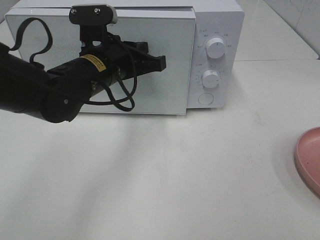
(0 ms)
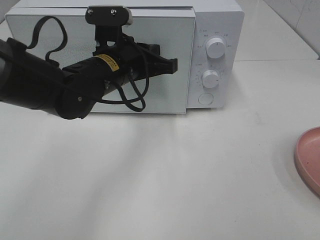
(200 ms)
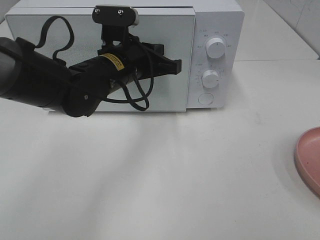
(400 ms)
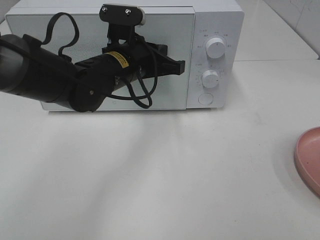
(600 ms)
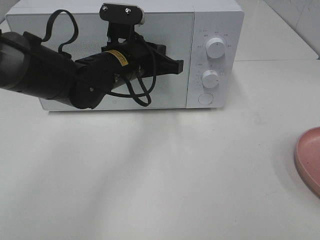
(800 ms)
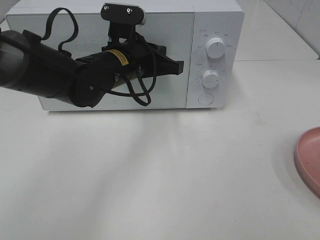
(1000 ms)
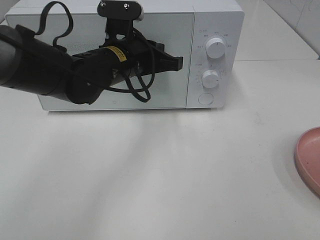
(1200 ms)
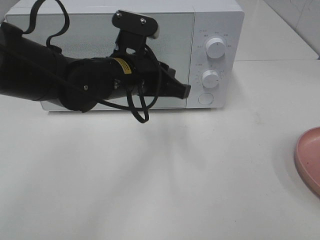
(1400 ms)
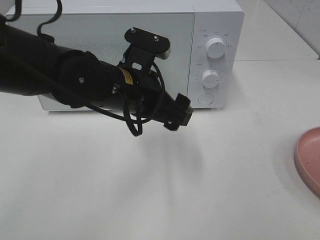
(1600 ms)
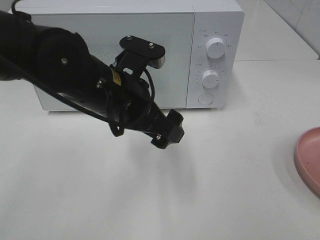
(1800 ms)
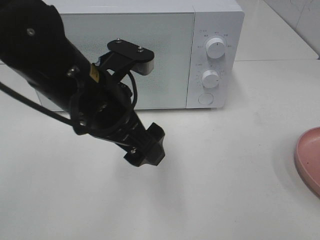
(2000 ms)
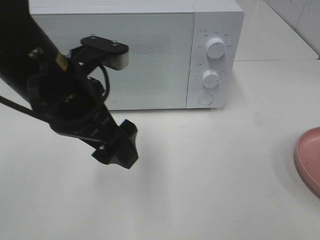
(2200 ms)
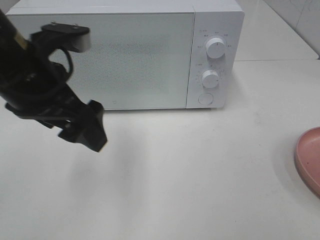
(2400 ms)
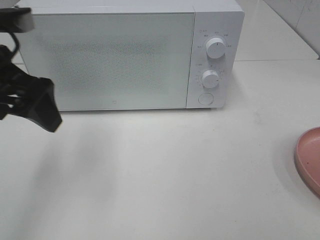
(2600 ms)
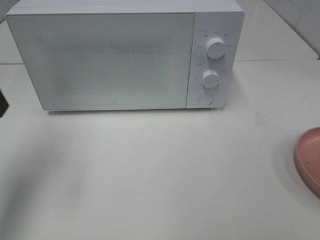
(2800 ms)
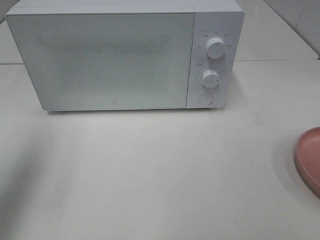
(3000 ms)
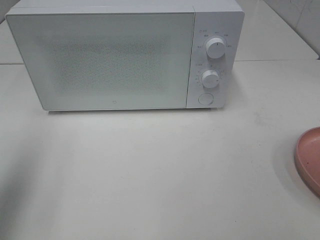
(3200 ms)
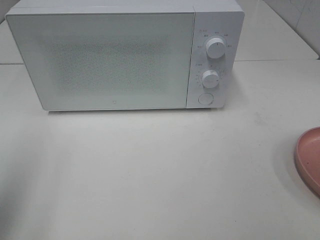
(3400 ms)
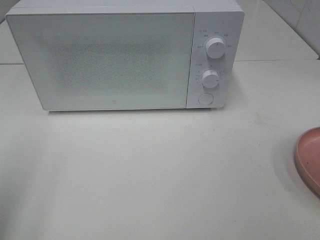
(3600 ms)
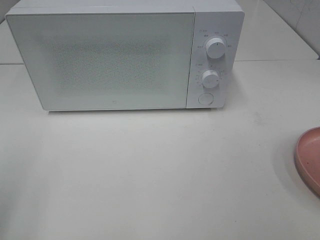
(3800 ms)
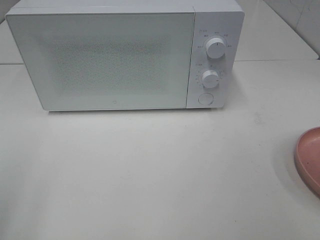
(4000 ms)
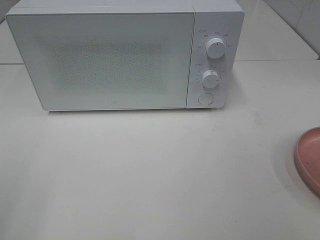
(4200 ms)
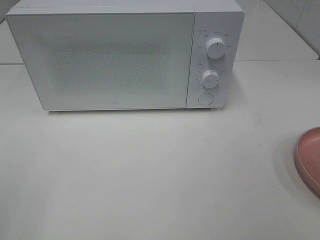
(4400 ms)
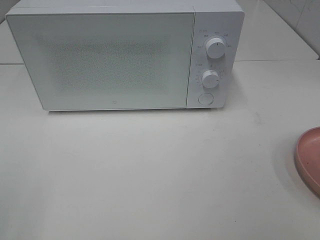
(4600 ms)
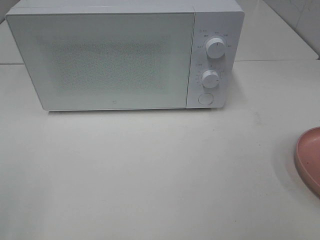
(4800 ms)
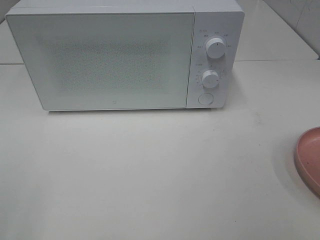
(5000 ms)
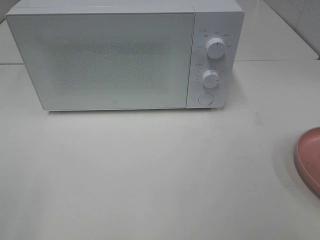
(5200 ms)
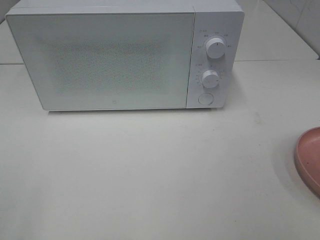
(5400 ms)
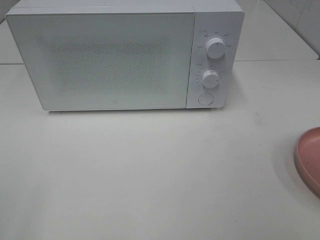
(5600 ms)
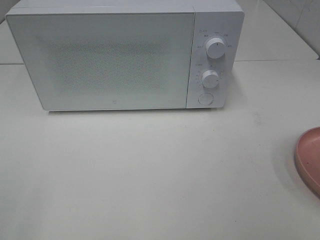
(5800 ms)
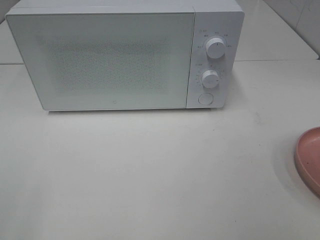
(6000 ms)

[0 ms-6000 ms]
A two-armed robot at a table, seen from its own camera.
Task of the whole recording: Heat the burger.
0 ms to 1600 ms: The left gripper travels backward by some 5 cm, and opens up.
1600 ms to 3000 ms: The left gripper shifts some 30 cm to the left and upward.
3000 ms to 4400 ms: The left gripper goes approximately 20 cm backward.

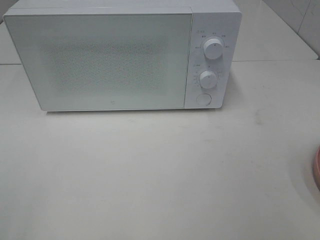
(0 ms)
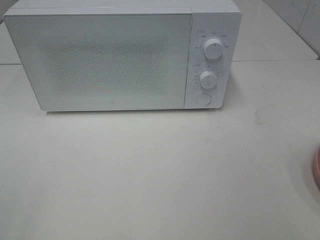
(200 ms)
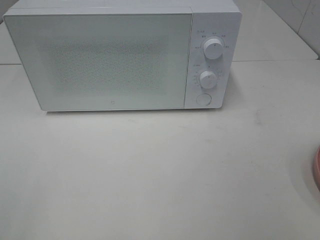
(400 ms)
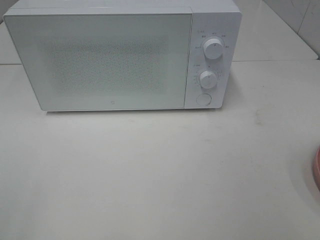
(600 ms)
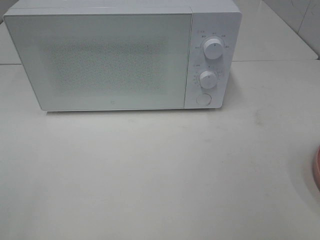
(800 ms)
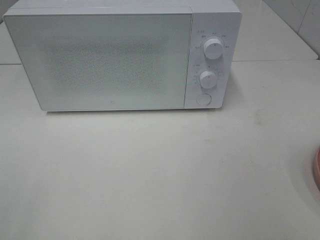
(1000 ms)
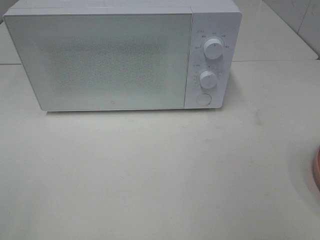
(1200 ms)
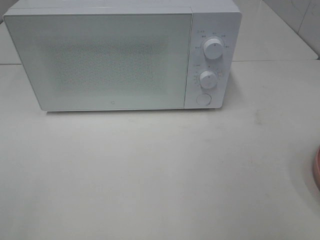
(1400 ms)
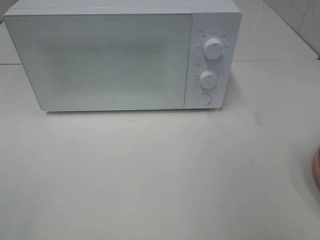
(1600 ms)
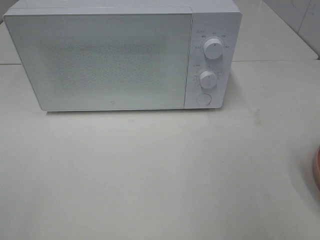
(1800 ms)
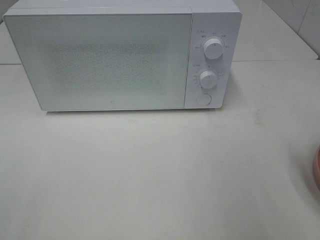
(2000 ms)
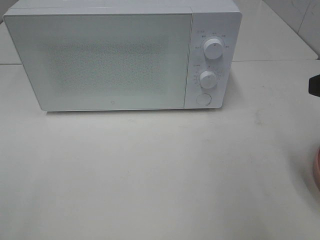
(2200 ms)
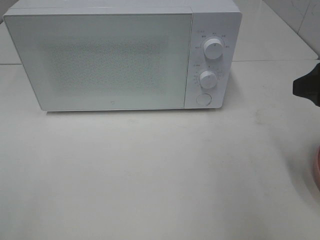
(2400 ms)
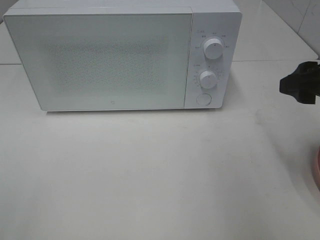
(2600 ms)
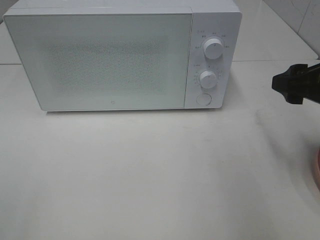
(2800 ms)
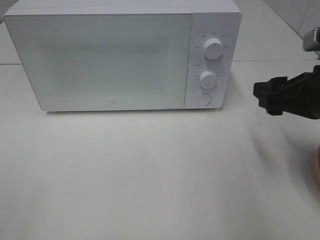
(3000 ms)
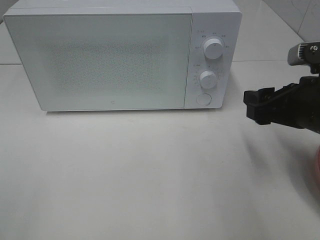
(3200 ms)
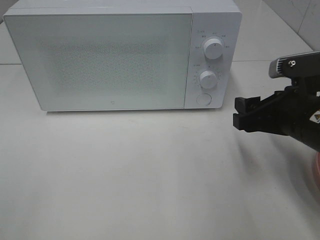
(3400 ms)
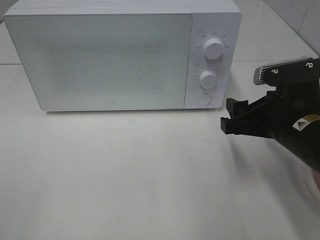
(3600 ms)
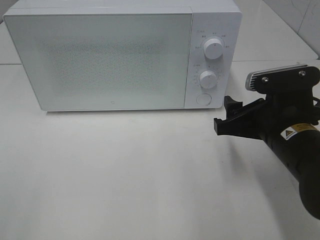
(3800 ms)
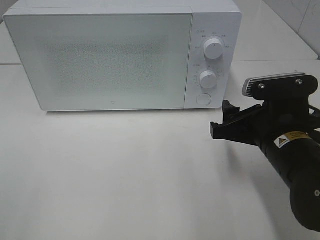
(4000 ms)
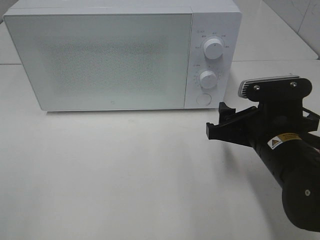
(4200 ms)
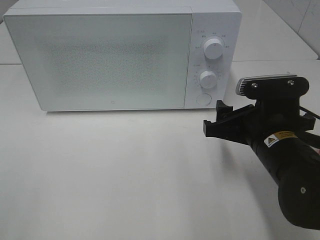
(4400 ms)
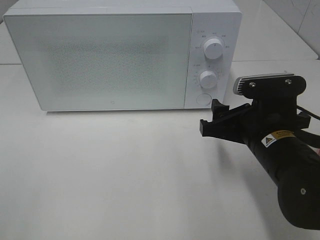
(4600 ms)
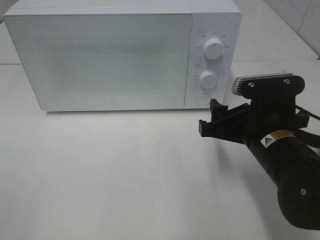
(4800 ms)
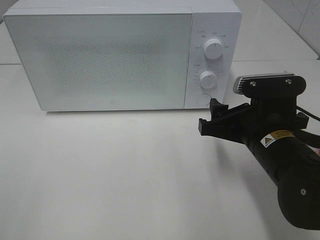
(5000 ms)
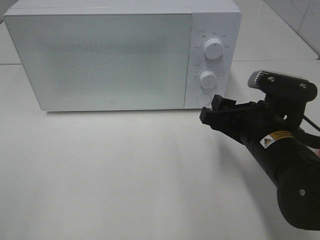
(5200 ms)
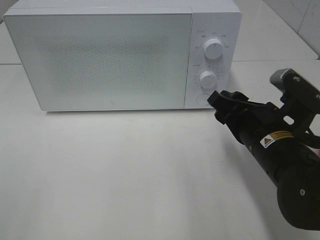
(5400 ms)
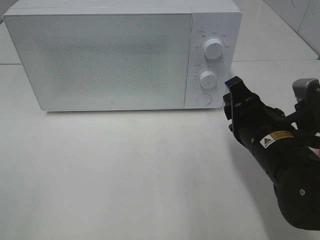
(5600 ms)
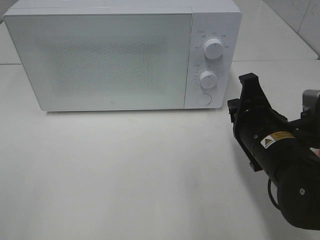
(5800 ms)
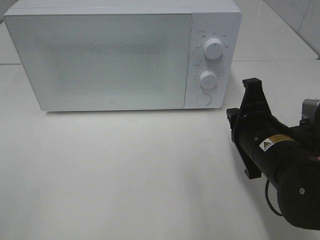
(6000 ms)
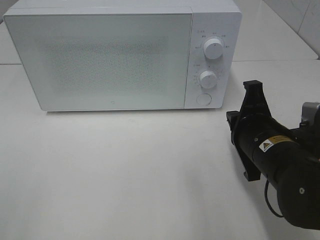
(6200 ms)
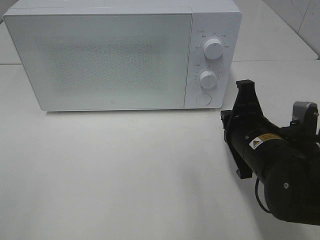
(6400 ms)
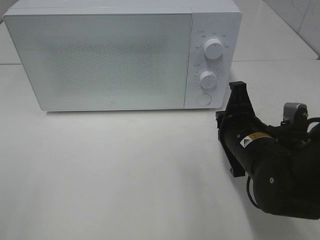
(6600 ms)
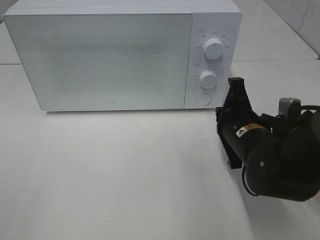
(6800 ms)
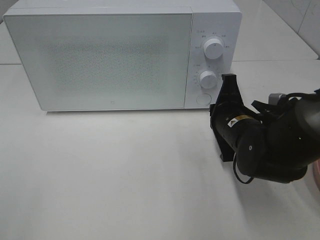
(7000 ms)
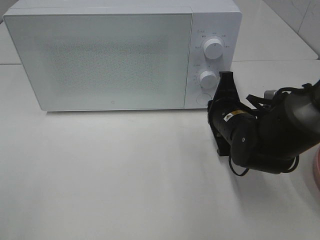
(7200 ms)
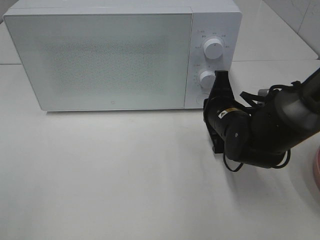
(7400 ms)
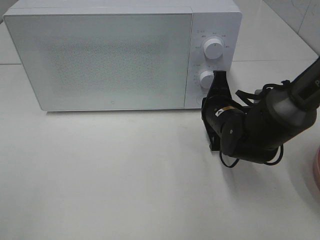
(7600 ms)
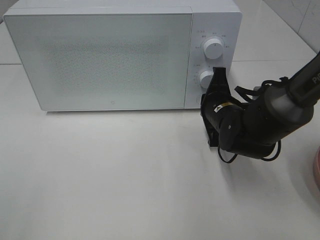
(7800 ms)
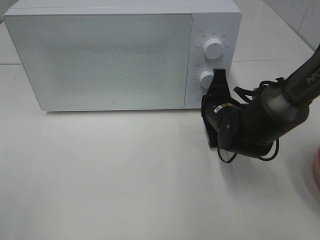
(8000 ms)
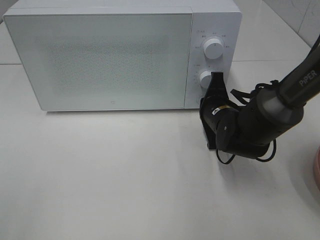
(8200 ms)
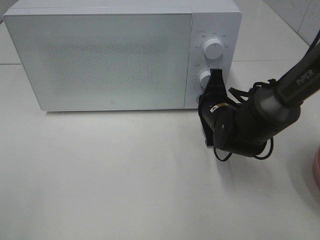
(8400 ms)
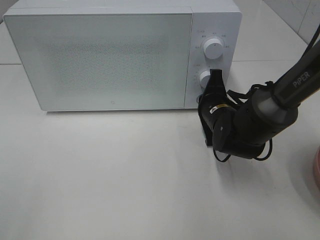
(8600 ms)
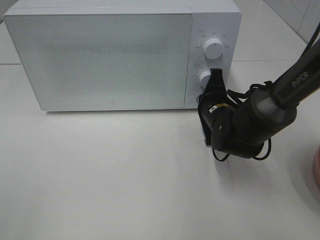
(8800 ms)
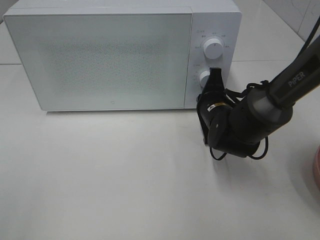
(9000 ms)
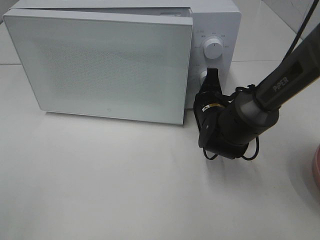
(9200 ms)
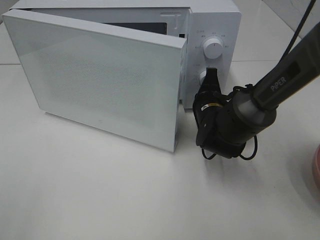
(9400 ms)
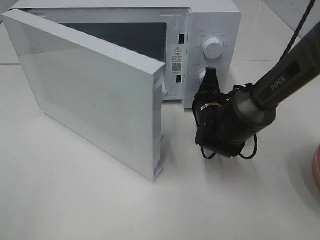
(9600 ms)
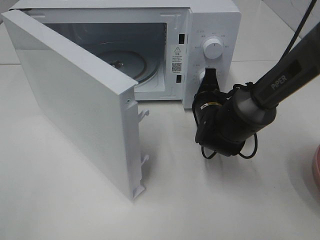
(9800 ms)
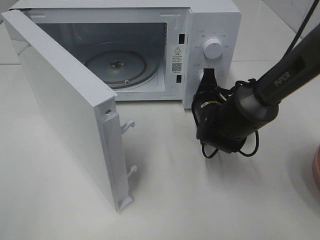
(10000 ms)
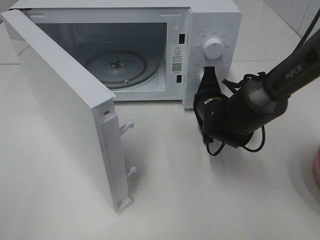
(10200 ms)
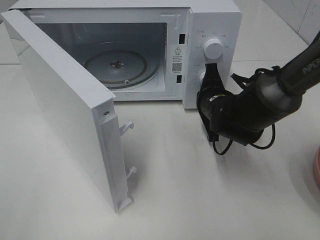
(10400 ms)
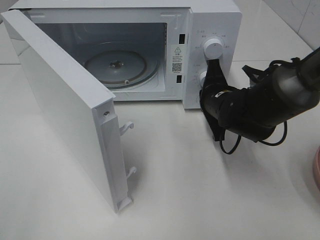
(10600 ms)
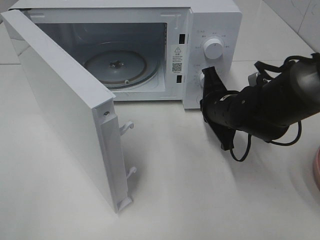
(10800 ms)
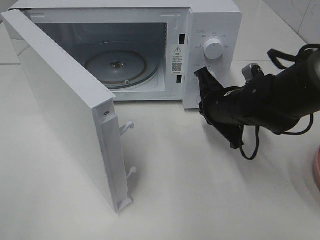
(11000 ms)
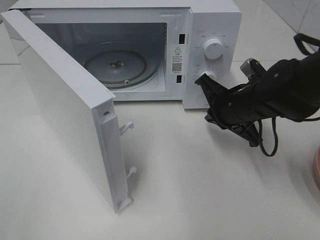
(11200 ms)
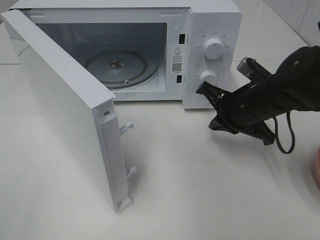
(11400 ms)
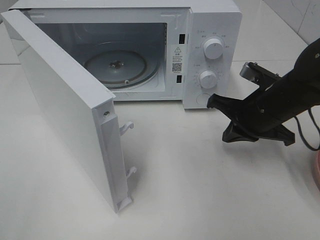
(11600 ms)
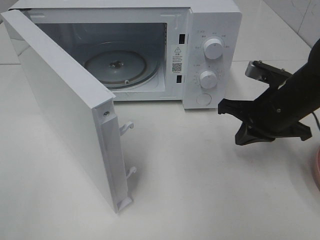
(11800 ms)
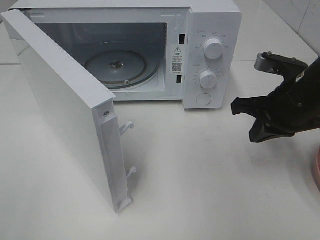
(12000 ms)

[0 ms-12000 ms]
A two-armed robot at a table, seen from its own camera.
Task of the whole recording: Heat the burger.
Step, 0 ms to 10400 ms: Right hand: press the switch.
1600 ms to 3000 ms: The right gripper heads forward and downward, covering about 15 cm.
3000 ms to 4400 ms: The right gripper travels to the left and downward by approximately 10 cm.
4400 ms to 6000 ms: The right gripper closes up.
6000 ms to 7600 ms: The right gripper travels forward by roughly 10 cm.
7600 ms to 9000 ms: The grippers stay close to where they were, moving slightly.
10400 ms to 12000 ms: The right gripper goes roughly 15 cm upward, to the right and backward.

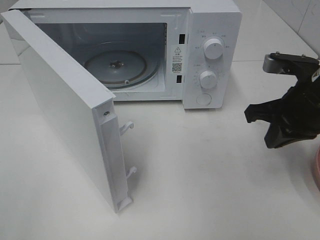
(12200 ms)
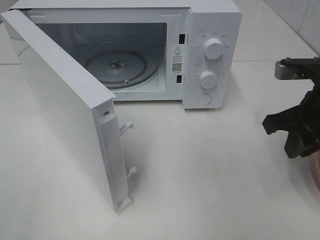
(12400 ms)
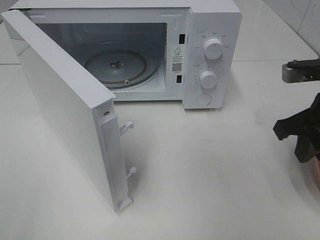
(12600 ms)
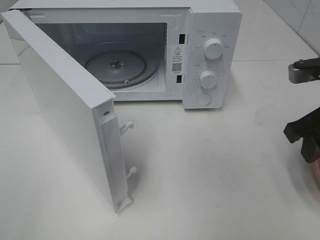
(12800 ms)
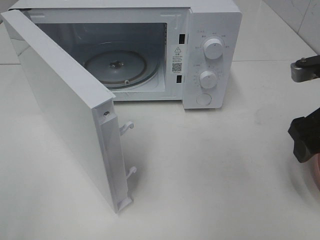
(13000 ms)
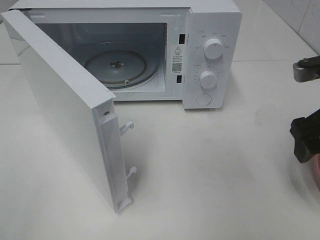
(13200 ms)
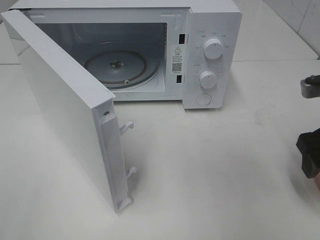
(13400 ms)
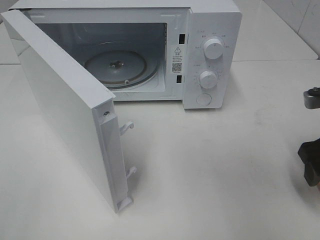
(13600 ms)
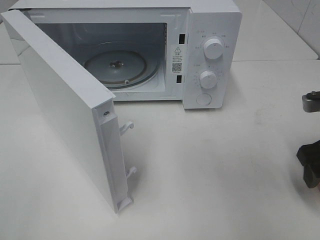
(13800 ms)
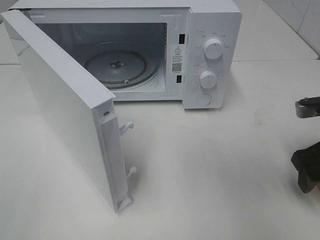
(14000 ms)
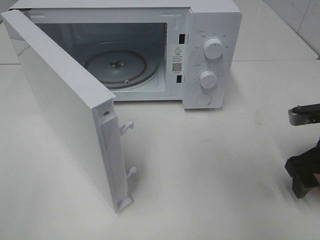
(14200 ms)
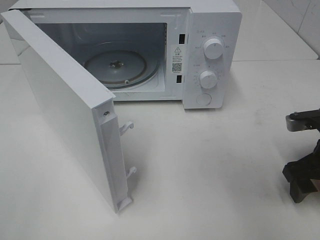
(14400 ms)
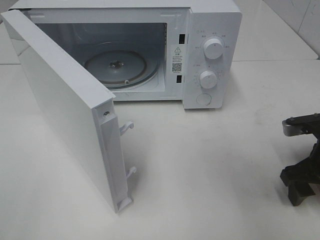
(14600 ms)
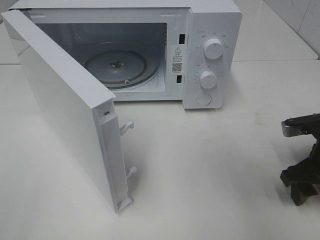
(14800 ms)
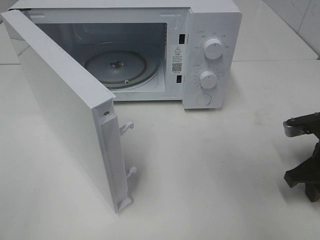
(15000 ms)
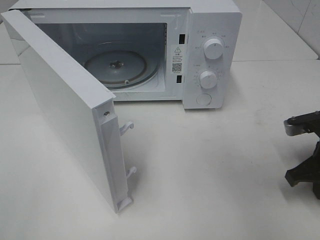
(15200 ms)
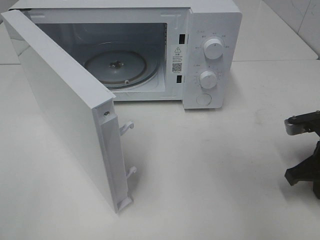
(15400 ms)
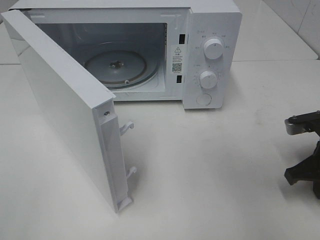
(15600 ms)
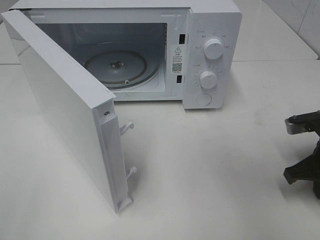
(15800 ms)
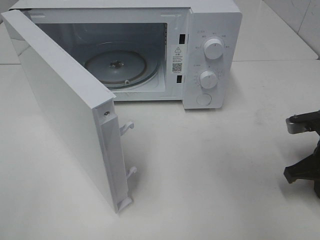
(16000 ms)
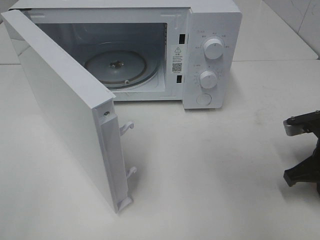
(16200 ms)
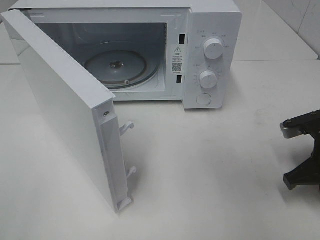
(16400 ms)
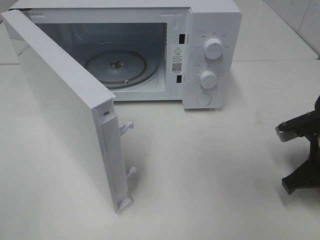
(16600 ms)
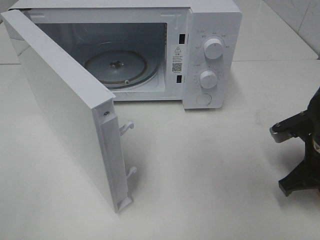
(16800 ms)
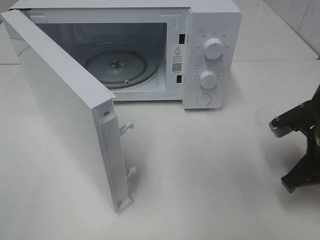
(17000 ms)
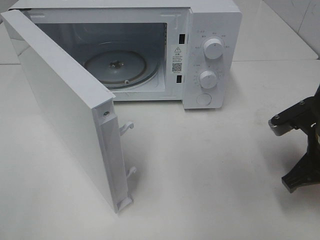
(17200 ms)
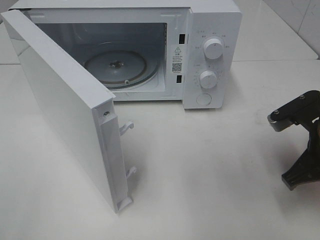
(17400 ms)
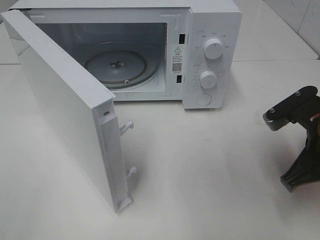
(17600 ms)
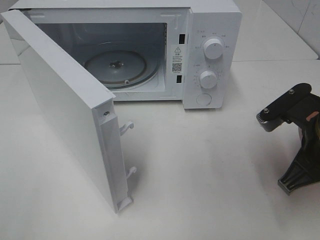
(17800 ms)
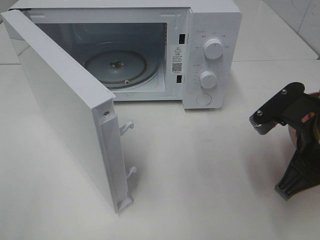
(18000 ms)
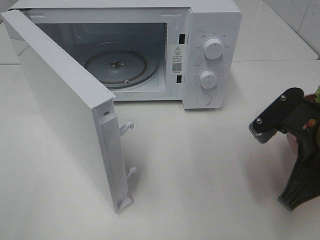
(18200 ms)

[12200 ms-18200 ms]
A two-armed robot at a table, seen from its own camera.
Task of the whole recording: Heat the burger.
Step, 12200 ms to 15400 ms: Right hand: grab the plate with the hamburger.
12200 ms to 13800 ms: The right gripper moves to the right, about 5 cm, and opens.
13800 ms to 15200 ms: The right gripper moves downward, about 5 cm, and closes its fingers.
15200 ms to 16600 ms: The grippers move only a little.
16600 ms to 18200 ms: The right gripper shifts about 10 cm upward, to the left and backward.
